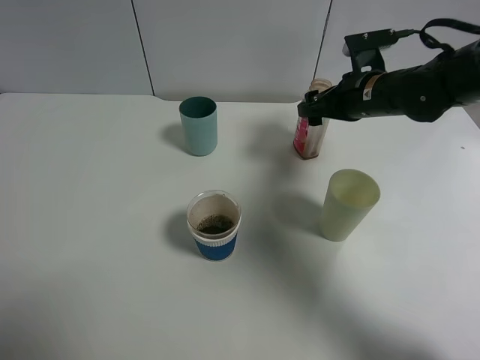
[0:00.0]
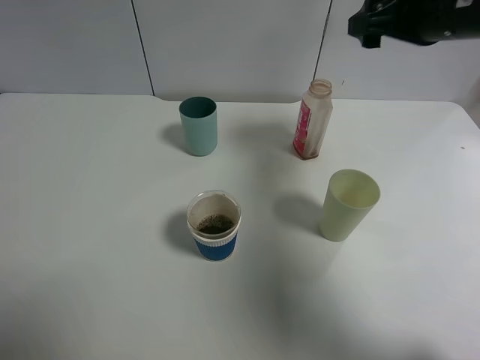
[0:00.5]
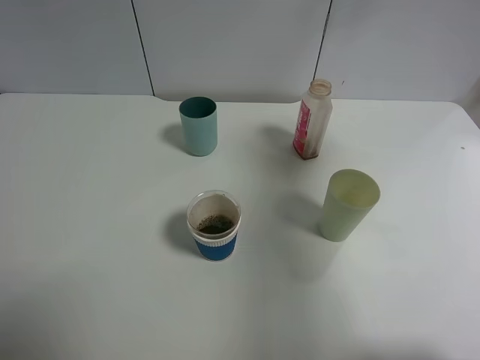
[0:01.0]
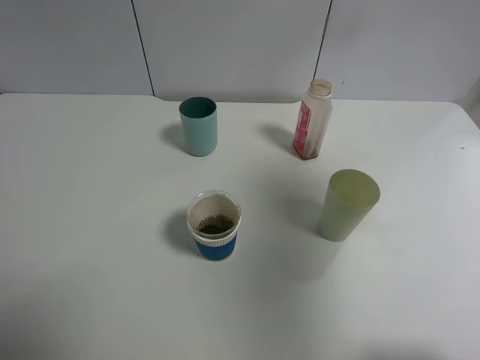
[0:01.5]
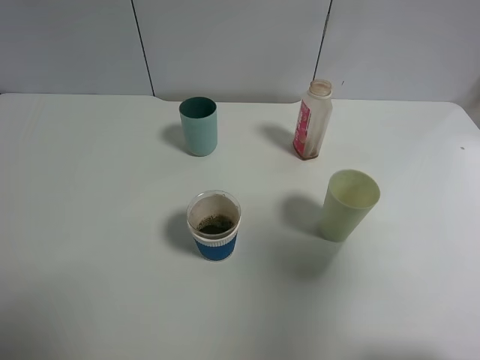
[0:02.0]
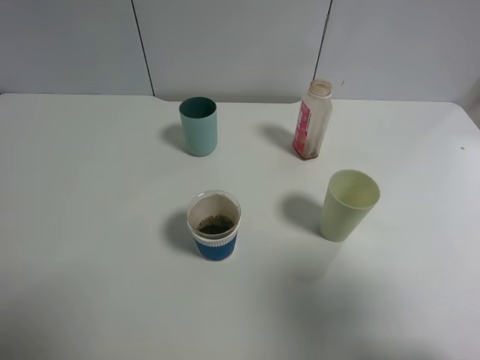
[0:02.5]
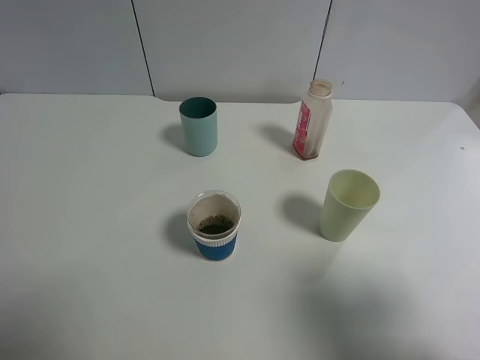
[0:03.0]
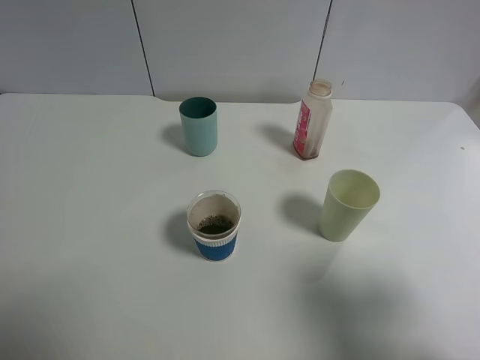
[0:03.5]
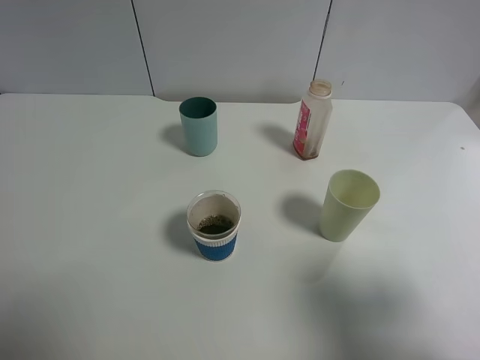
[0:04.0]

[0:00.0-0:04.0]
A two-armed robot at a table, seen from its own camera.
Task of the whole recording: use a gripper to hold the bottle of the drink and pour it into a random cup.
0:00.0 to 0:02.0: The right gripper shifts some 40 cm backward and upward.
0:02.0 to 0:04.0: The right gripper heads downward, covering about 10 cm.

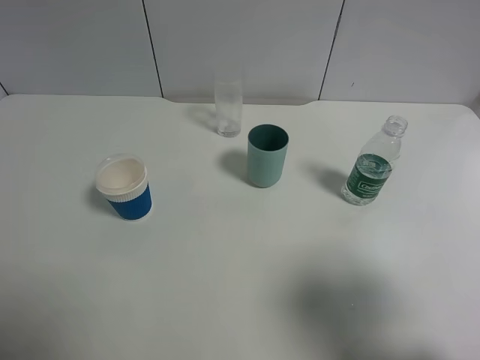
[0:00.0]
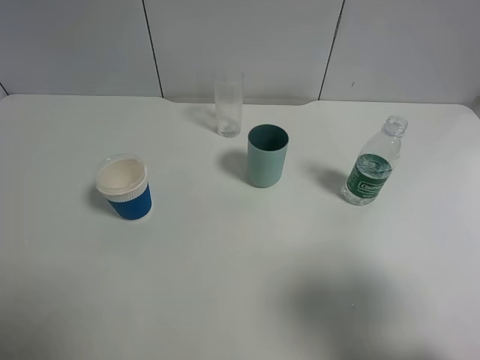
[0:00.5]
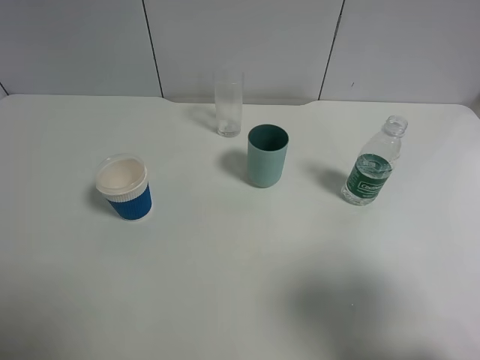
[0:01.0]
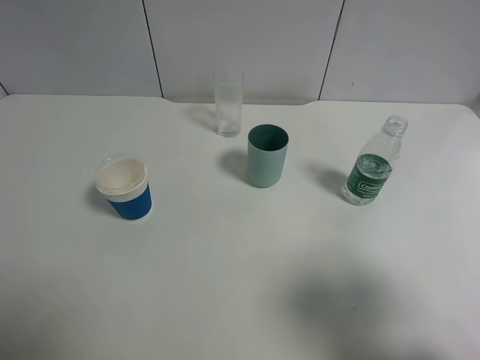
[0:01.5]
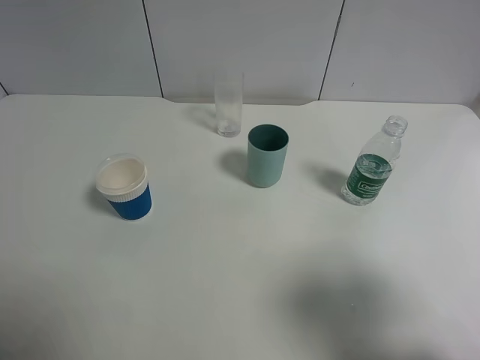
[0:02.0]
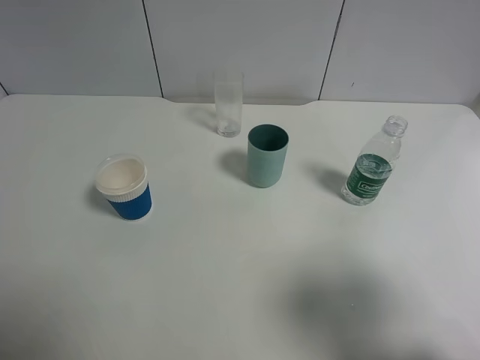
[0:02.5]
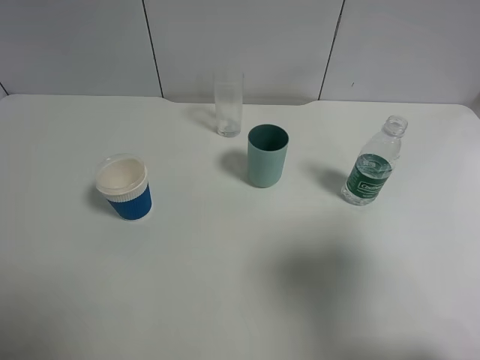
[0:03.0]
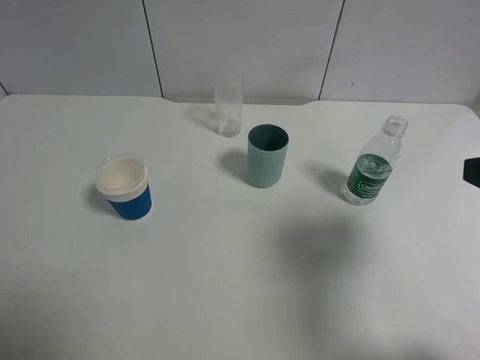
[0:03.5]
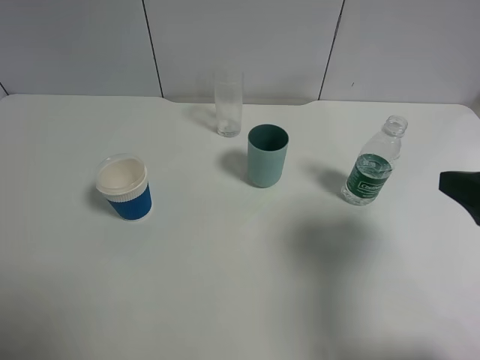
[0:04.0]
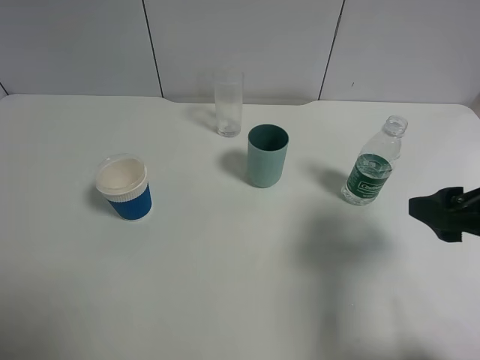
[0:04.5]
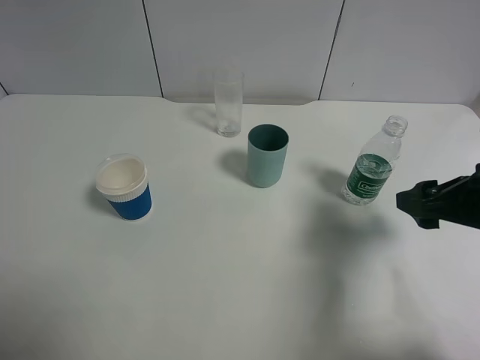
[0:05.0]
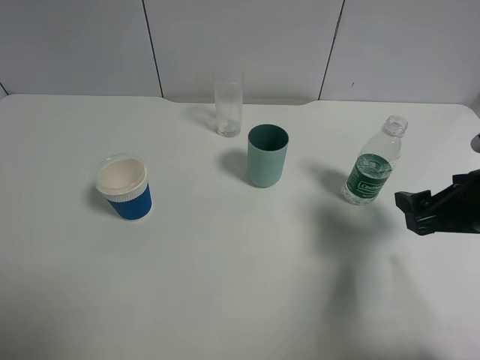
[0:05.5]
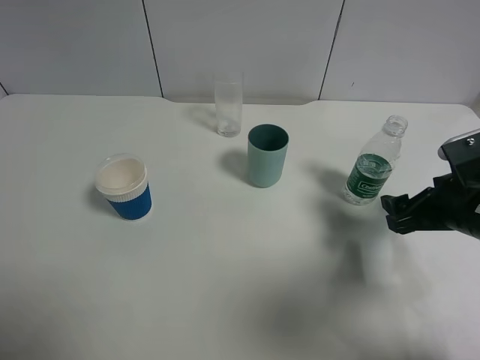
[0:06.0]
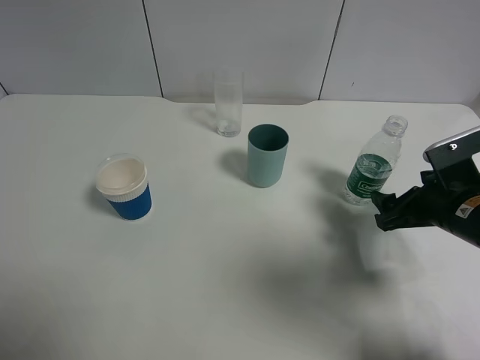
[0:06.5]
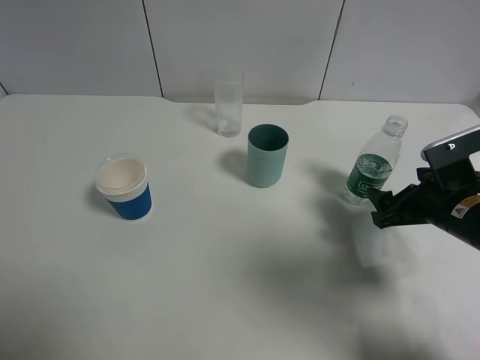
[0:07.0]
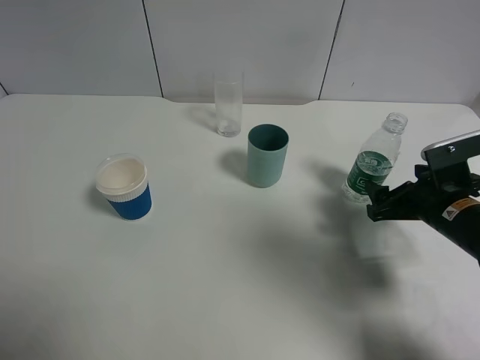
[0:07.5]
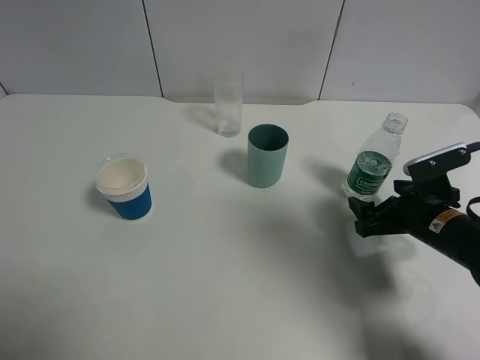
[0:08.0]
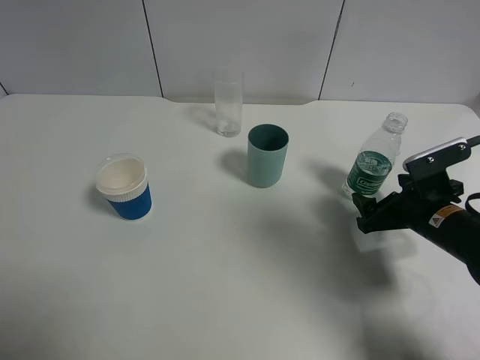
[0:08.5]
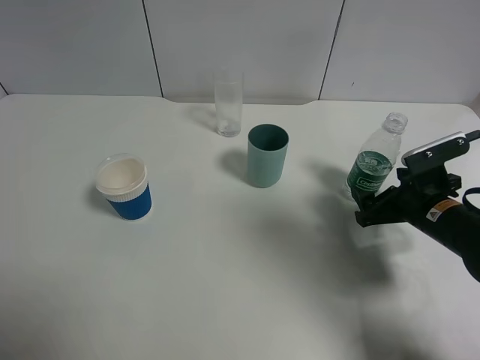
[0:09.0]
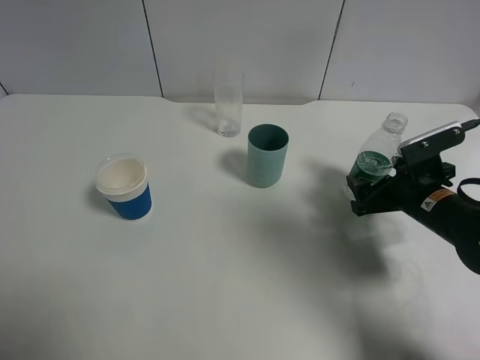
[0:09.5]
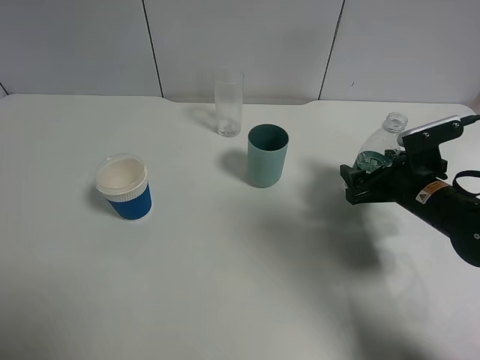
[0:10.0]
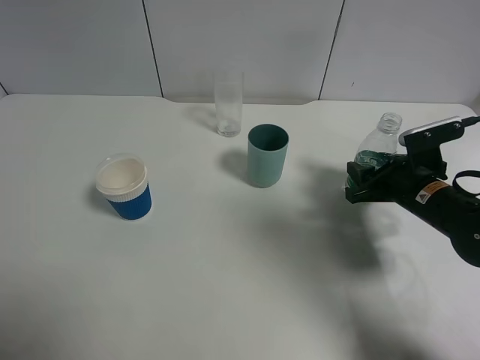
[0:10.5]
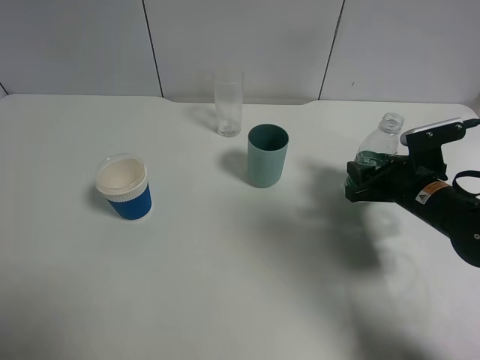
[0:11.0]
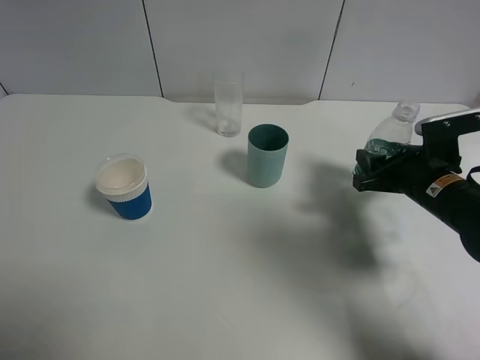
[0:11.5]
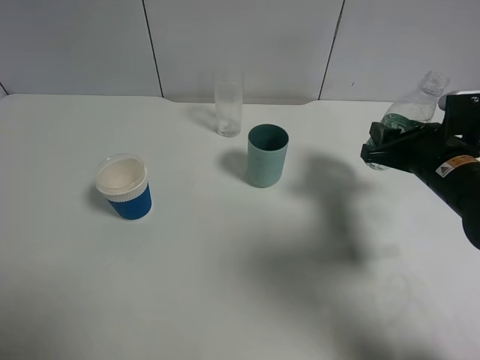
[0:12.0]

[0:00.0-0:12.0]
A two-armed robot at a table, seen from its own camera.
Task of the whole recording: use a gripper to hold the bottle of the drink and pour it into a random cup.
Step, 0:00.0 to 0:11.0: Grasp the mineral water bottle with the right gripper.
0:00.0 to 0:02.0: Both grippers stay about where they are.
0:02.0 to 0:04.0: The right gripper heads forward, covering approximately 10 cm.
0:04.0 to 0:06.0: The right gripper moves downward and forward, about 15 cm.
0:06.0 to 0:08.0: The right gripper is displaced downward by approximately 5 cm.
0:08.0 to 0:10.0: There are only small adjustments of the grippers.
0:10.0 to 0:12.0: The right gripper travels upward by roughly 5 cm, and closes its fingers.

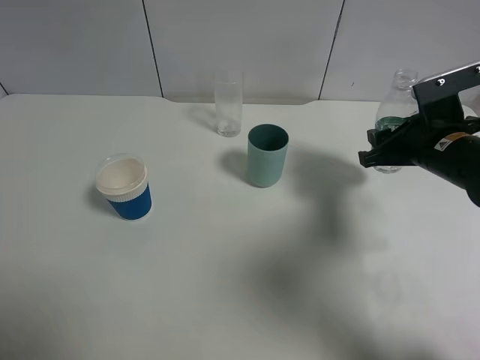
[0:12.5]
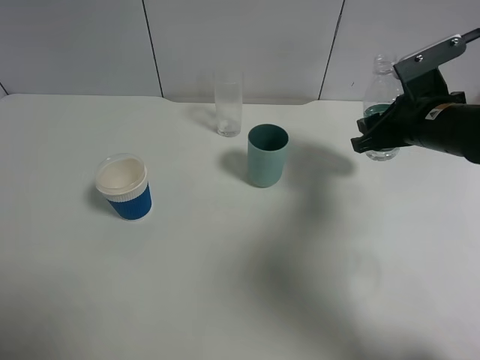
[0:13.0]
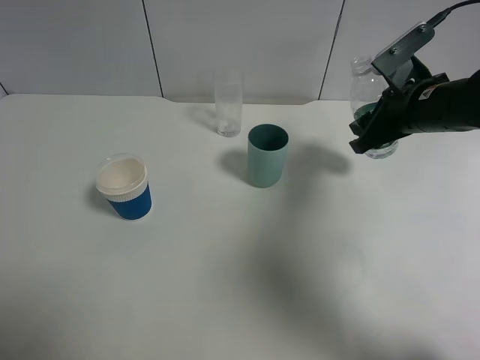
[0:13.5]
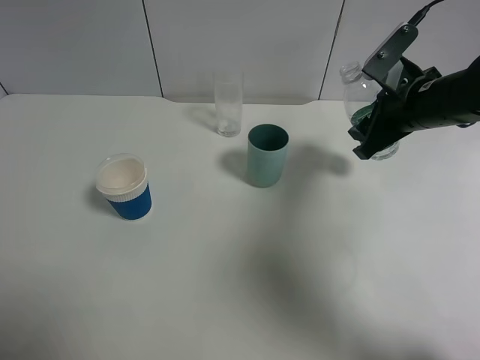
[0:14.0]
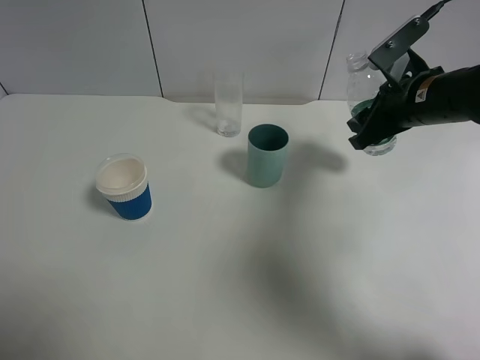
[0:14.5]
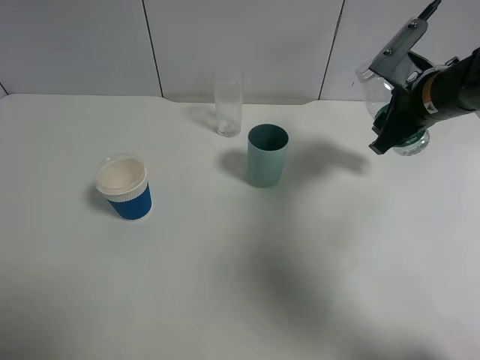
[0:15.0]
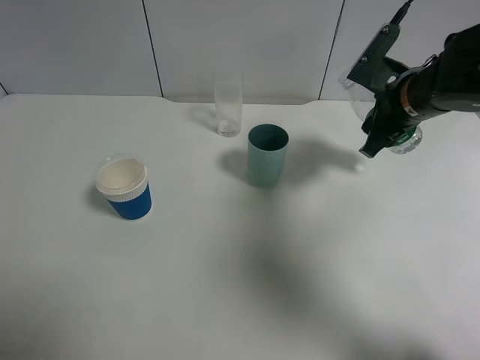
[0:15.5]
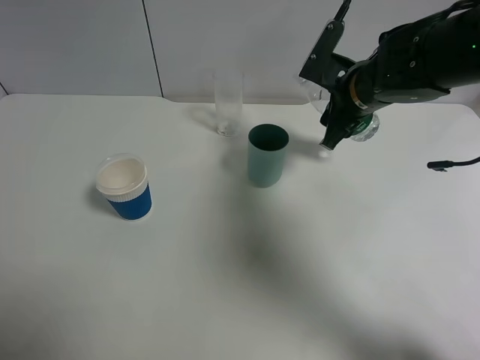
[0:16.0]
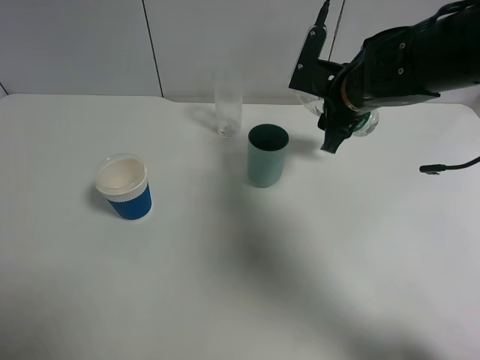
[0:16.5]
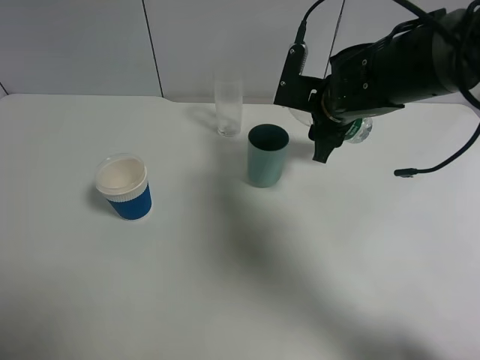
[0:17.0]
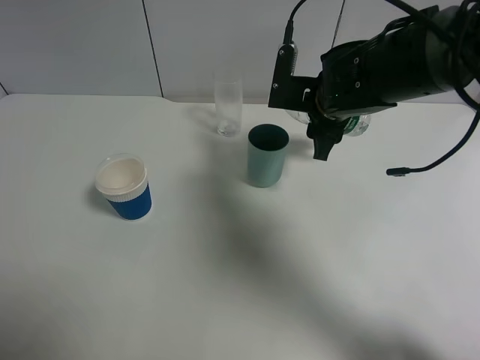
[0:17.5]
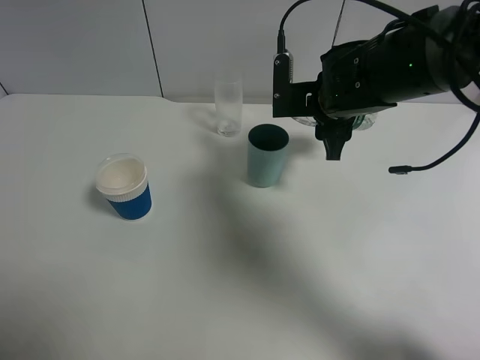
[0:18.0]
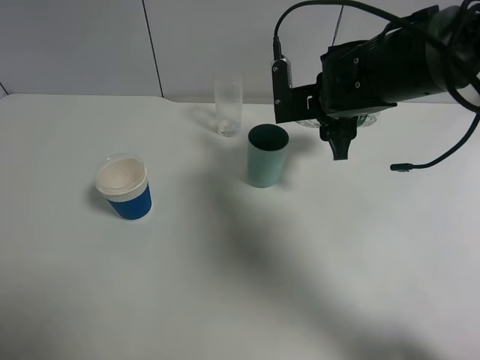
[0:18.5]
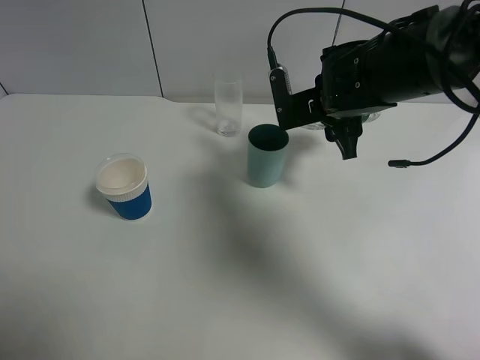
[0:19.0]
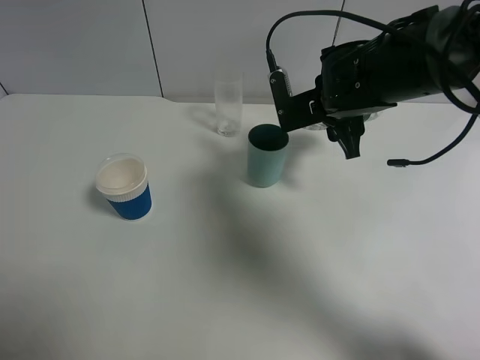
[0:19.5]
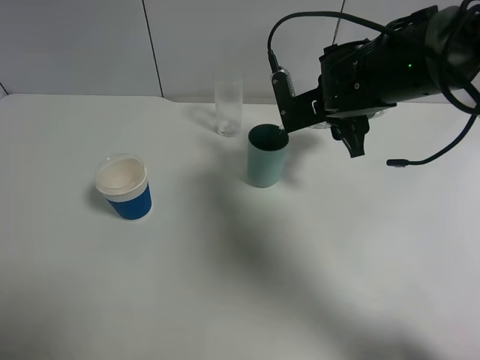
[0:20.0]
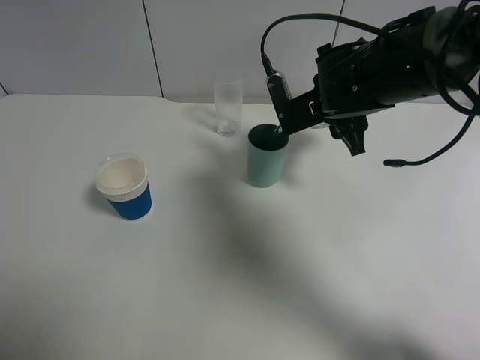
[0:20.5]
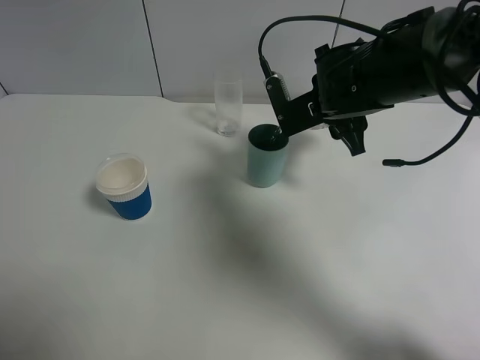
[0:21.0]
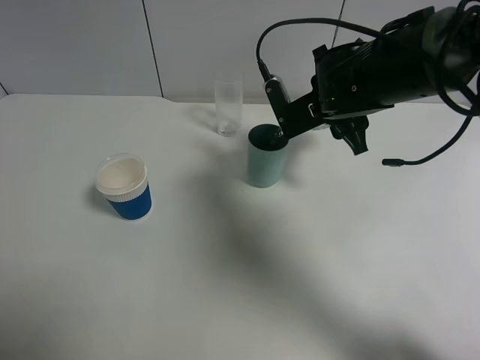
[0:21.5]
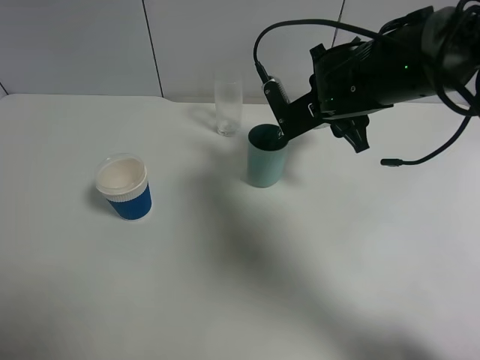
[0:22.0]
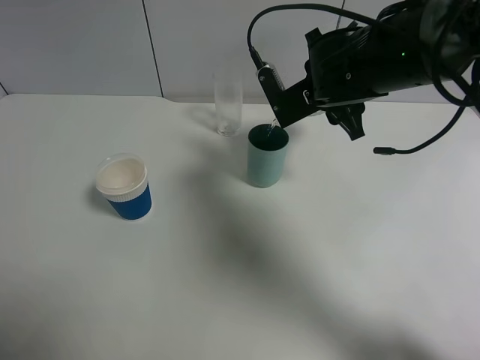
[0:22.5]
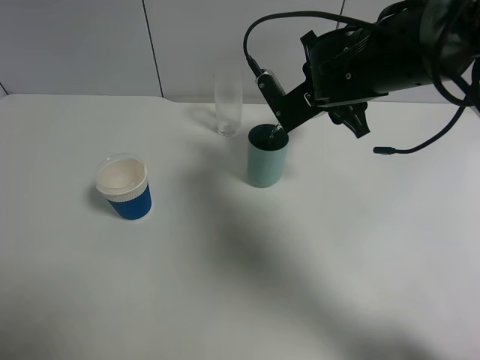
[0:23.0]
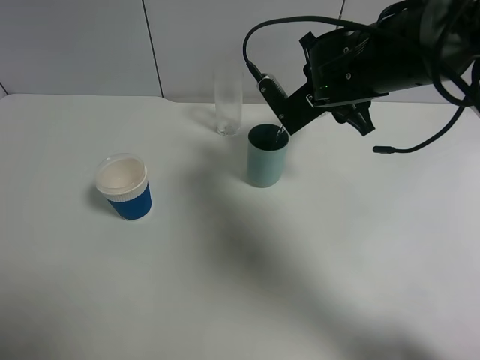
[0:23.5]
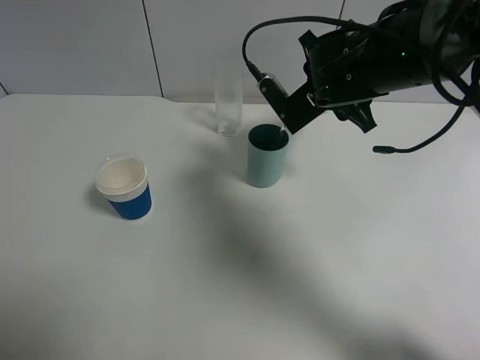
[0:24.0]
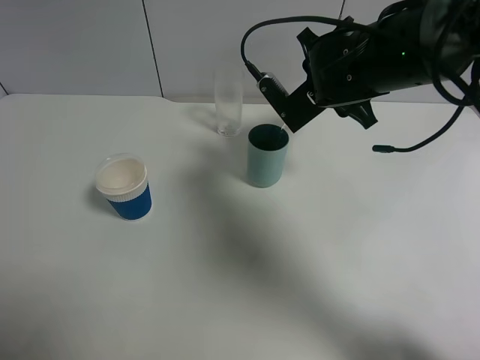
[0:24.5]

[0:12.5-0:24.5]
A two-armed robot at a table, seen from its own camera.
Task of the whole recording: use a gripper to hold the bottle of the drink and pour it into a random cup.
0:12.5 to 0:14.5: The right gripper shifts by about 5 cm.
0:14.5 to 0:16.5: The right gripper moves to the left, some 10 cm.
0:18.5 to 0:20.5: The grippers stay close to where they were, moving slightly.
0:20.5 to 0:24.5: The grippers make only small movements.
